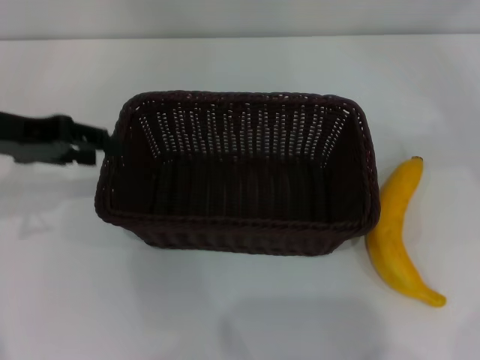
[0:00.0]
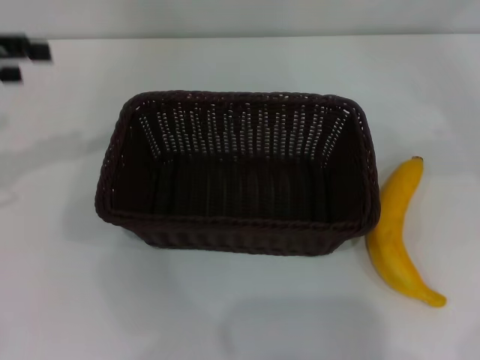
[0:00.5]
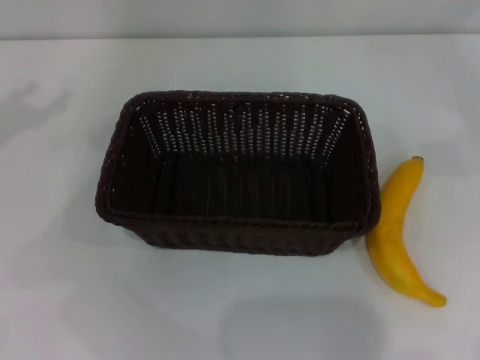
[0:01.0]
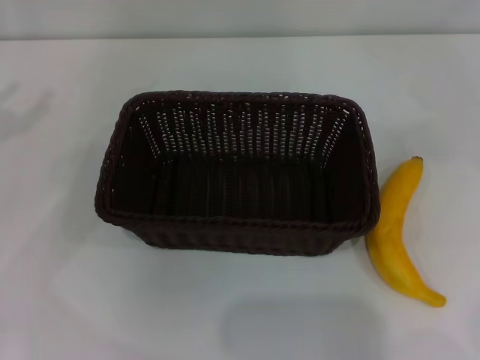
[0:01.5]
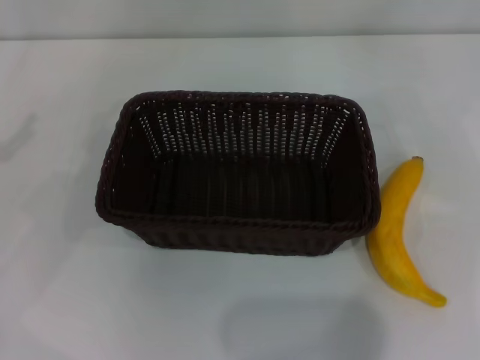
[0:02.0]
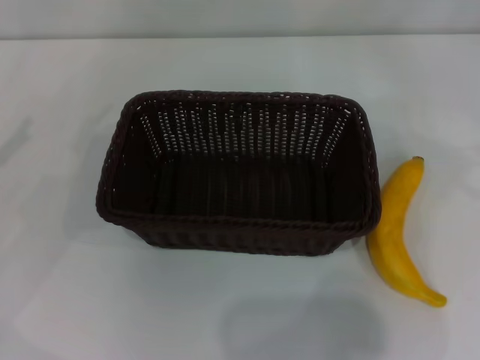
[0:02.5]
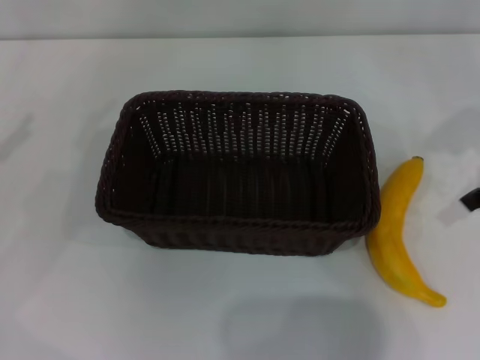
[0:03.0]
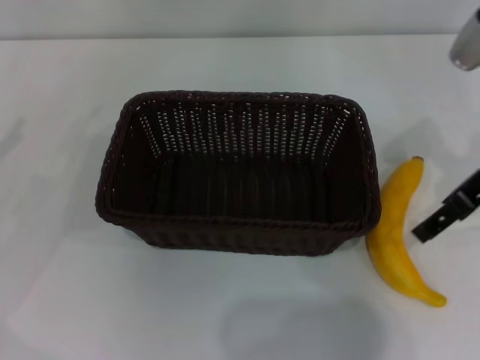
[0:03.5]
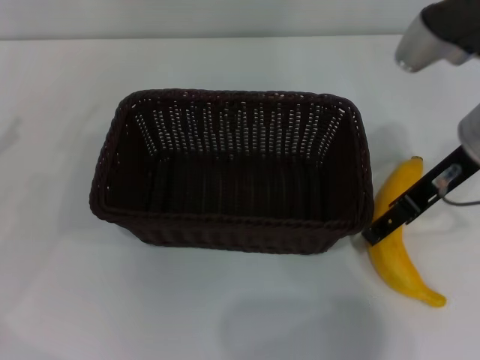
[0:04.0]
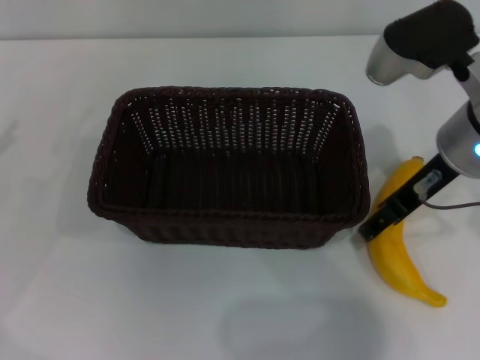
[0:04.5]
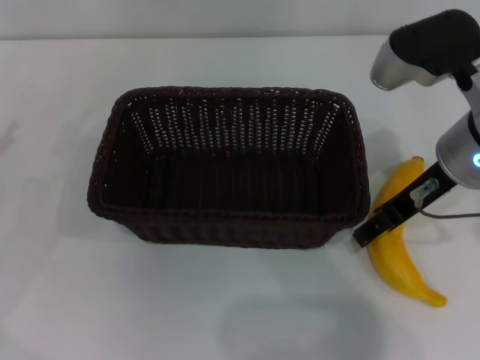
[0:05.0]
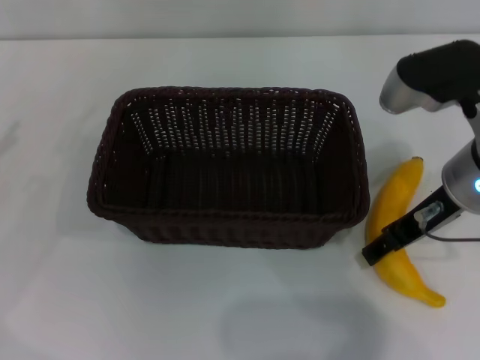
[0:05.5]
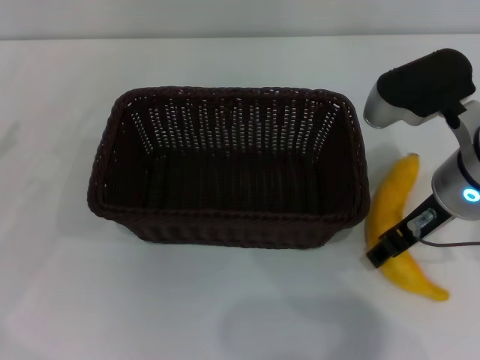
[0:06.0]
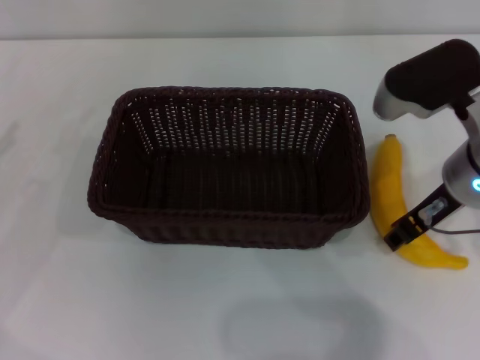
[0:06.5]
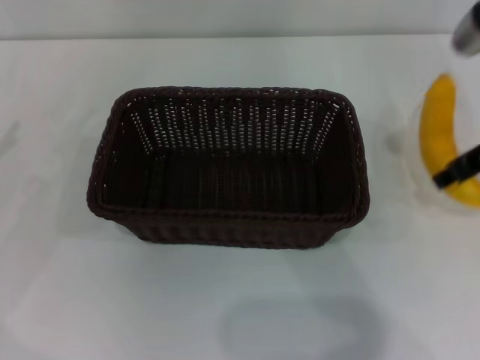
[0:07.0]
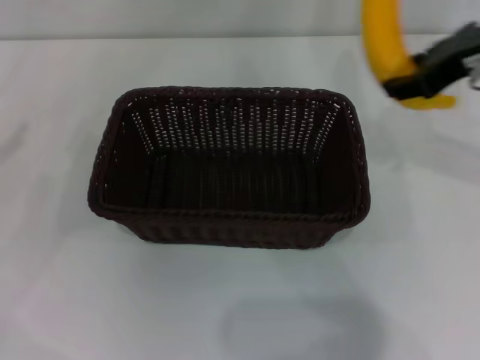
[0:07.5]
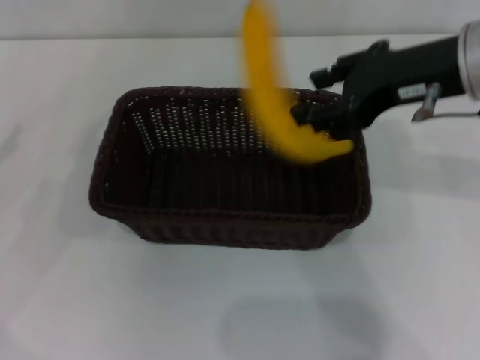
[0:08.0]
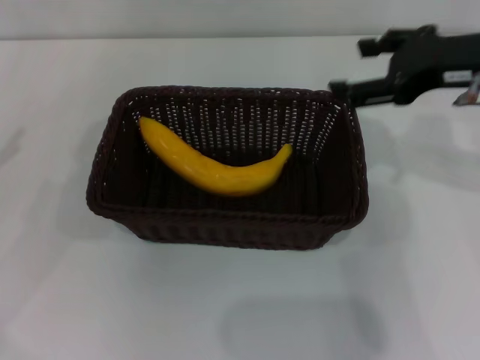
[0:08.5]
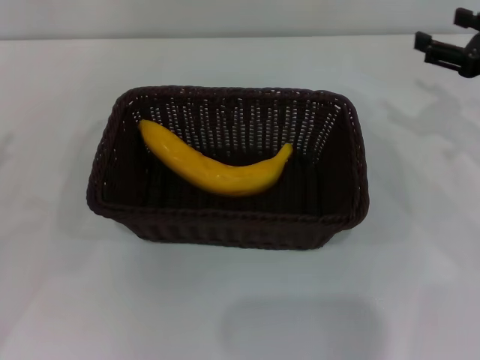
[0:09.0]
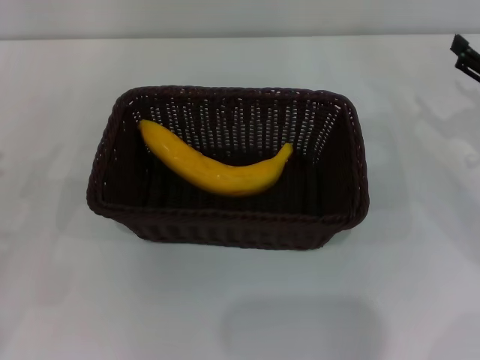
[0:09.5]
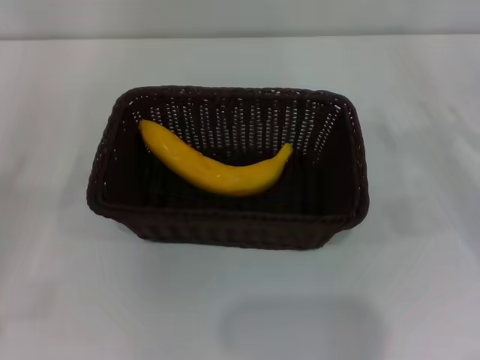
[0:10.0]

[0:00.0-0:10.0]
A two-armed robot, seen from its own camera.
Step, 0:00.5 to 0:06.5: Pick up the banana with the right gripper.
Step, 0:07.0 to 0:08.0: Place the banana into the dark basket with the right gripper.
0:00.0 to 0:02.0: The left gripper moves to the left and backward, roughly 15 cm, and opens.
0:02.0 to 0:04.0: The right gripper shifts some 25 cm to the left.
0:04.0 to 0:06.0: The right gripper closes up.
0:06.0 to 0:08.0: The right gripper travels upward by approximately 10 cm, and closes up.
0:08.0 to 0:10.0: The right gripper goes about 25 cm downward and to the right, and opens its fingers. The left gripper shifts some 10 cm downward and backward.

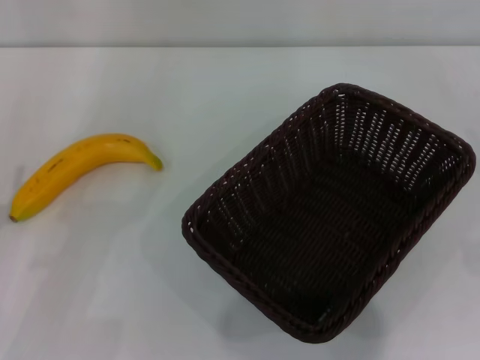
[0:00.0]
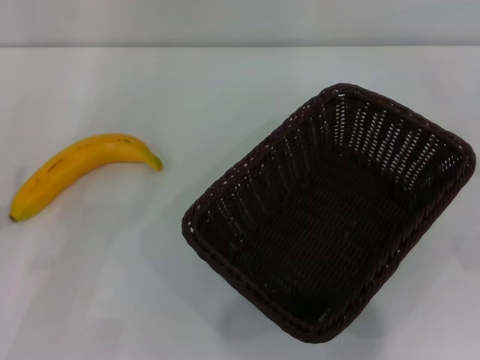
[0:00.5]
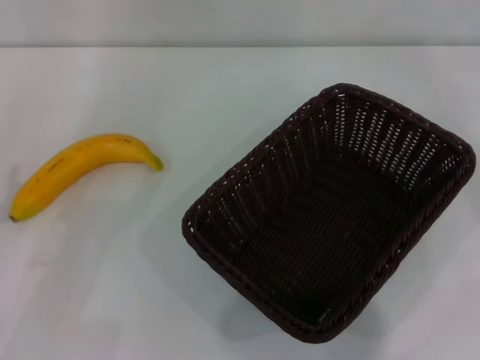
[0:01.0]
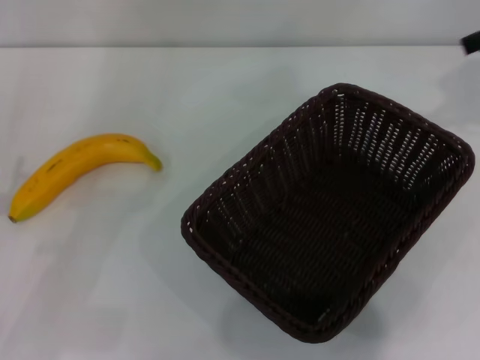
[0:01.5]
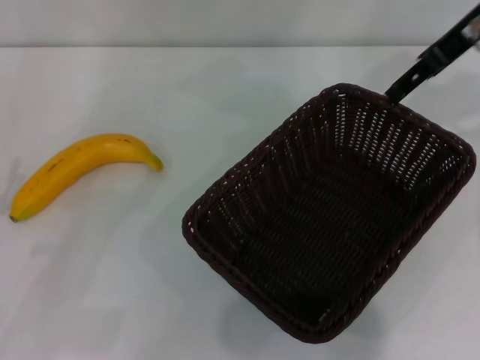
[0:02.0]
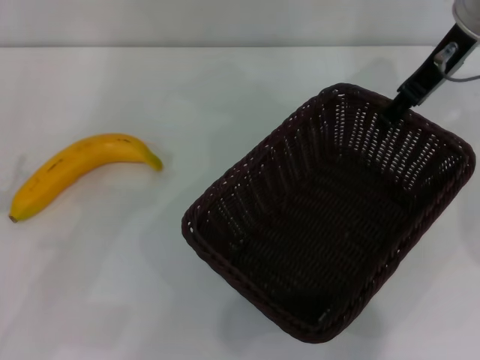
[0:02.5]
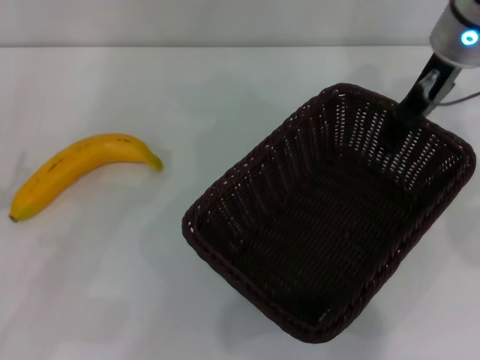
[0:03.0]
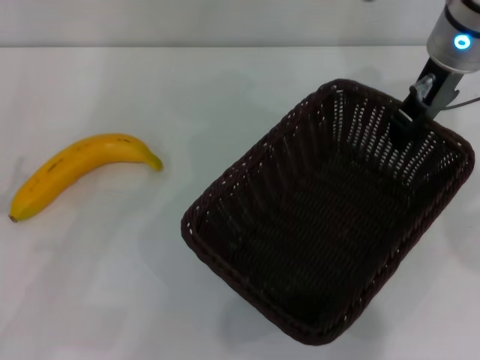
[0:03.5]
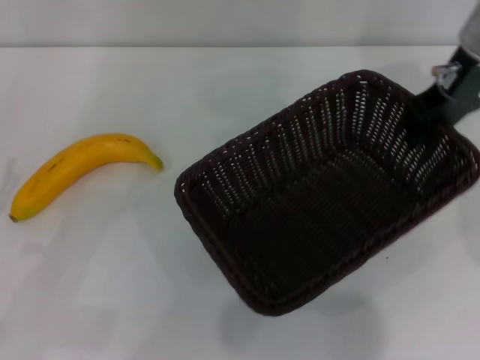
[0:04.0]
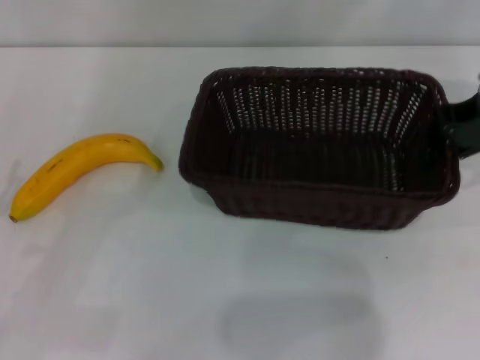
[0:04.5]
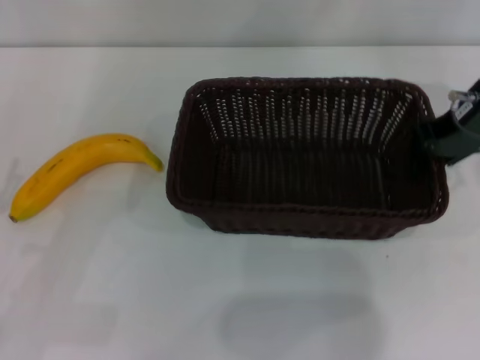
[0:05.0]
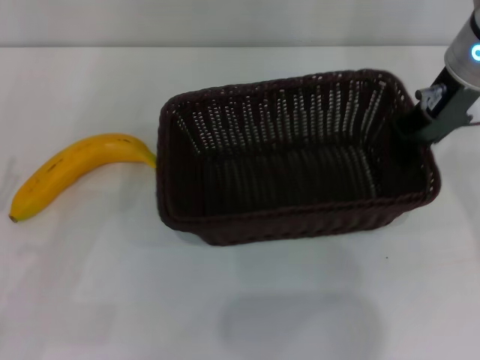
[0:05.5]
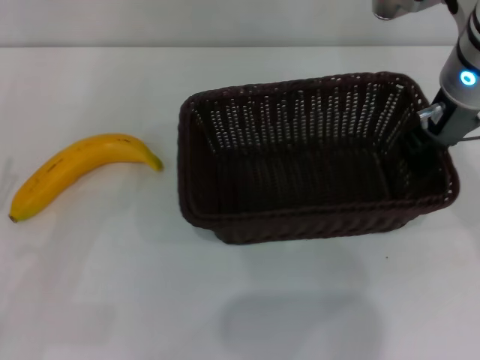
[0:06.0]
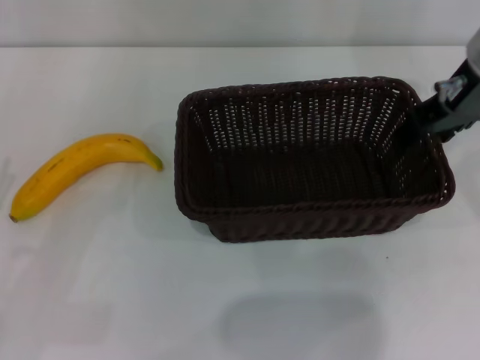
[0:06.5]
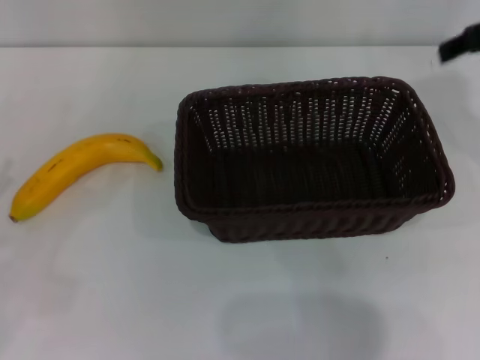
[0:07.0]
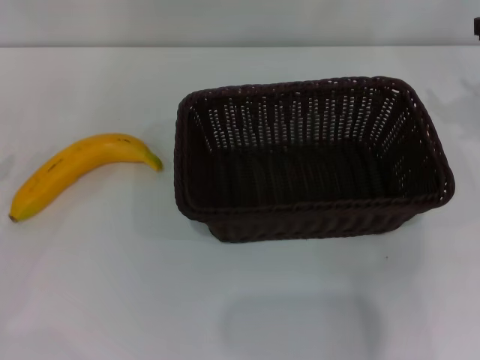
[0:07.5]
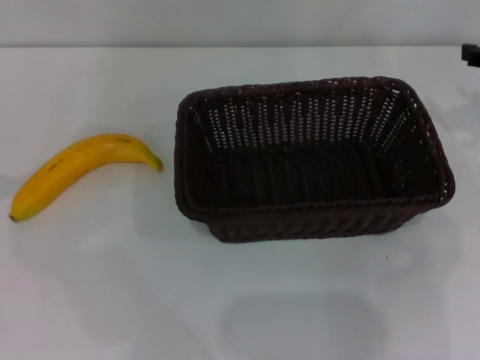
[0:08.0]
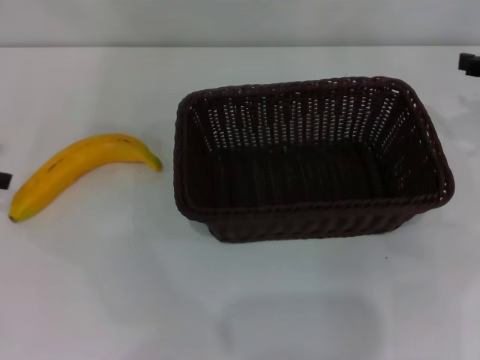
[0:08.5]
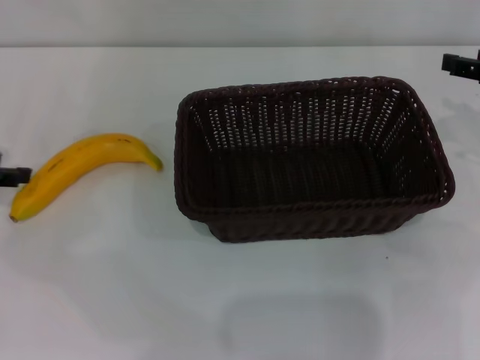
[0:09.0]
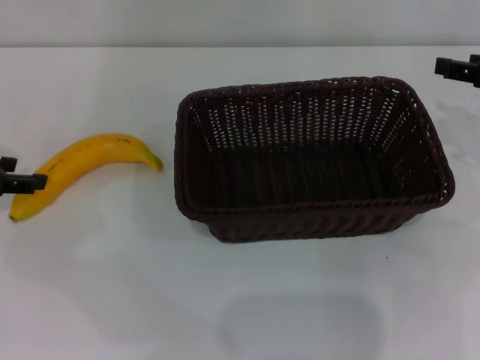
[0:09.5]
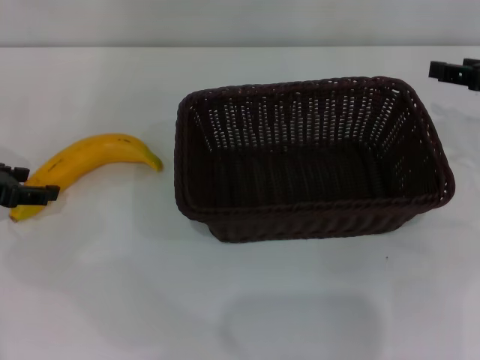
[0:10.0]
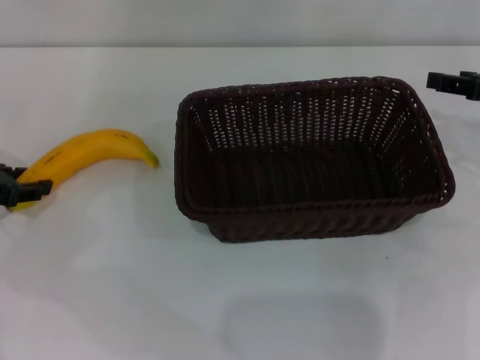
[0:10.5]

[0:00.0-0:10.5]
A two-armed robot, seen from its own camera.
Step, 0:00.0 to 0:03.5: Pick up the dark basket with the right gripper.
Step, 0:04.0 to 0:06.5: Place the dark basket in the center of view with the right gripper.
0:00.0 to 0:02.0: The right gripper is displaced upward, to the left and forward by about 35 cm.
0:02.0 to 0:04.0: The right gripper closes up.
0:04.0 to 0:06.5: The right gripper travels to the right and back again, about 5 cm each way, and opens.
0:06.5 to 0:08.5: The right gripper moves to the right and downward, roughly 15 cm.
0:08.5 to 0:10.5: The left gripper shifts approximately 5 cm downward, and closes its fingers.

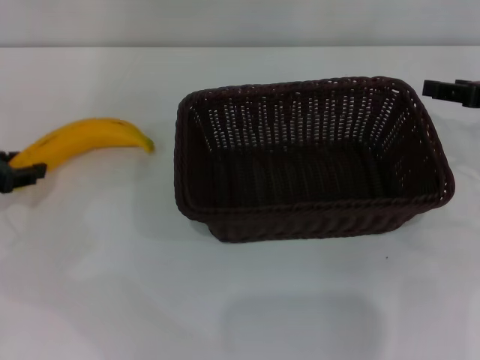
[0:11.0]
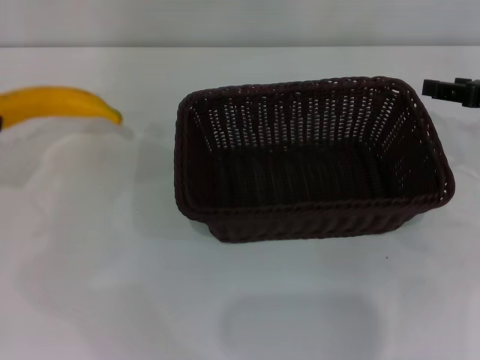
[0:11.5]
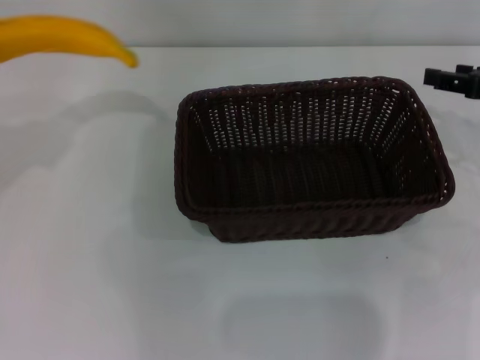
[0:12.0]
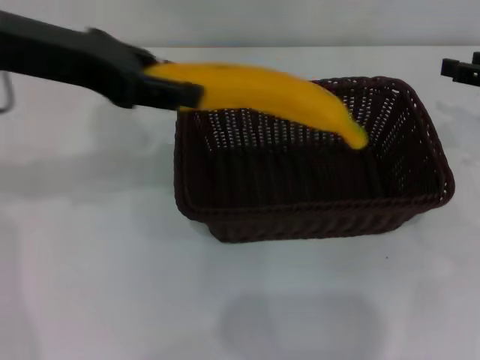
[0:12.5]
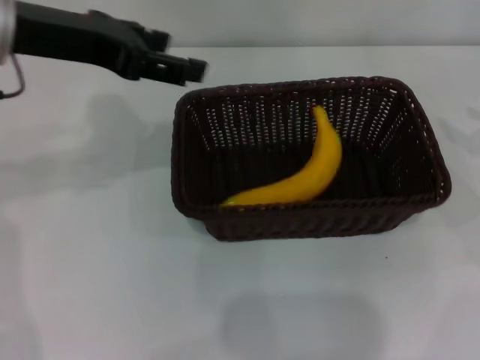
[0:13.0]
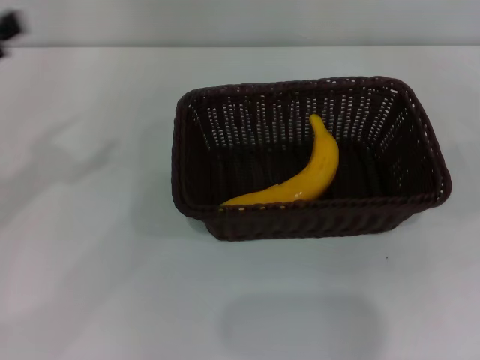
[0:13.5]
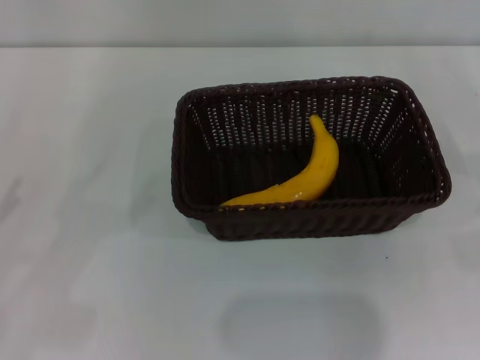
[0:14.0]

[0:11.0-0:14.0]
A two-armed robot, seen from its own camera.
Step, 0:12.0 to 0:12.5: Place the banana into the dark basket with the left gripper.
0:11.0 to 0:12.5: The left gripper travels upward and to the right by approximately 25 cm.
0:12.5 to 0:14.0: The left gripper moves to the left, downward and backward, some 30 cm, and opens up. Meanwhile the right gripper goes approximately 15 cm to the right, backward and downward.
